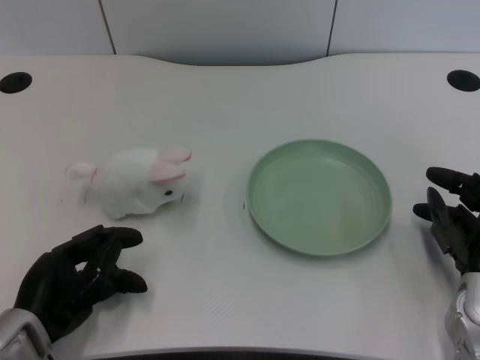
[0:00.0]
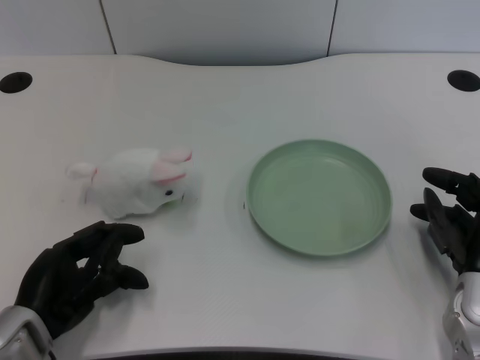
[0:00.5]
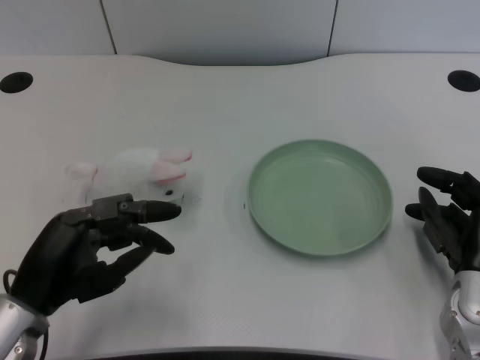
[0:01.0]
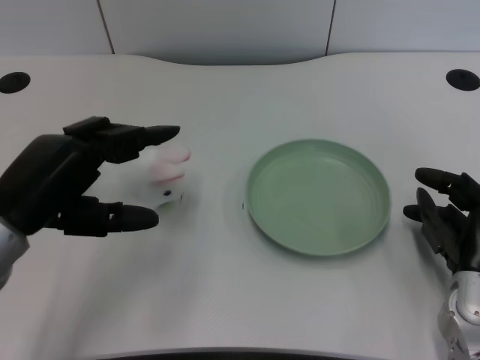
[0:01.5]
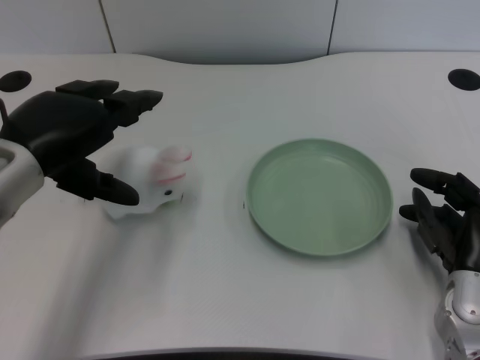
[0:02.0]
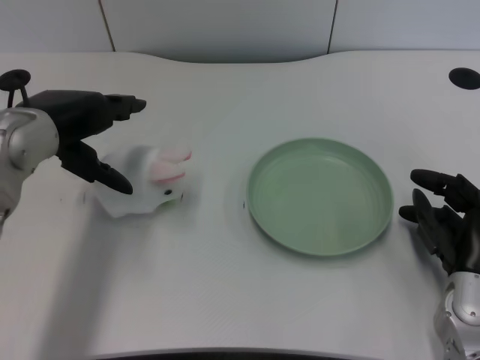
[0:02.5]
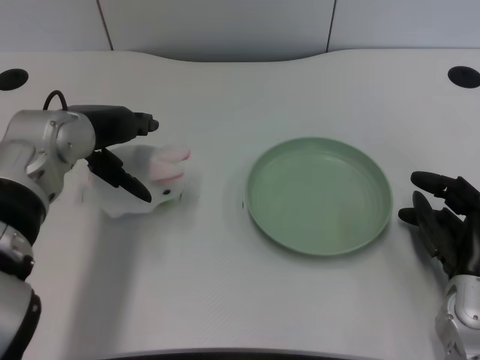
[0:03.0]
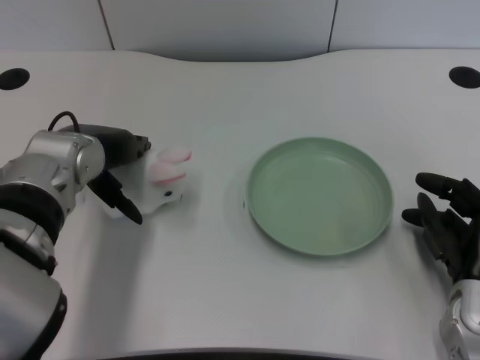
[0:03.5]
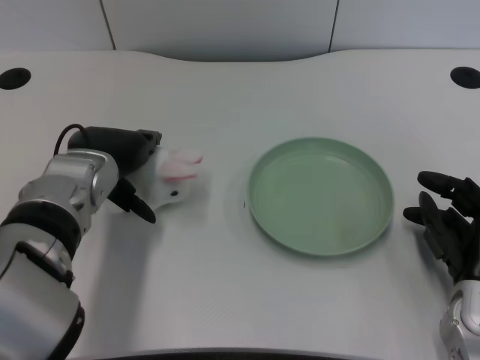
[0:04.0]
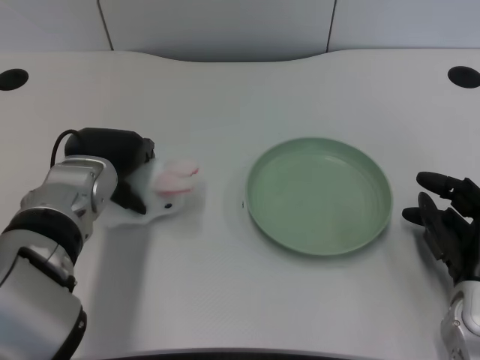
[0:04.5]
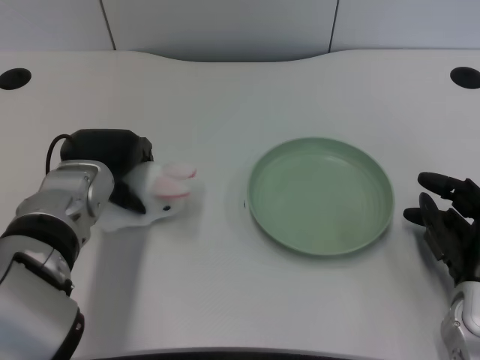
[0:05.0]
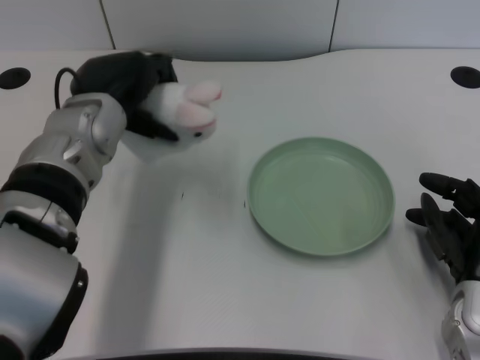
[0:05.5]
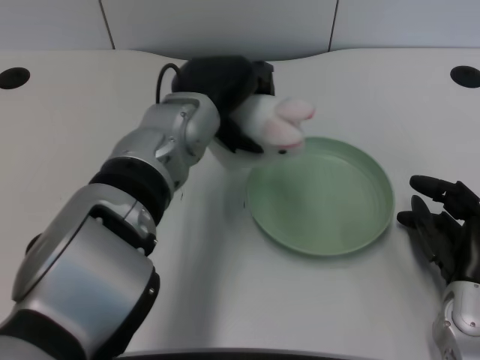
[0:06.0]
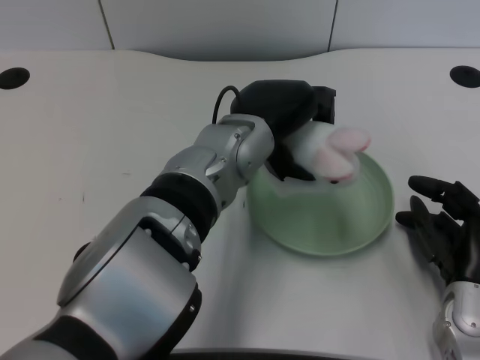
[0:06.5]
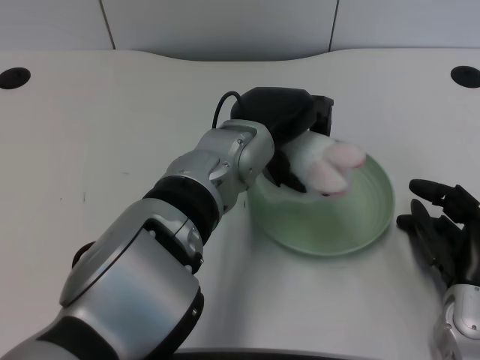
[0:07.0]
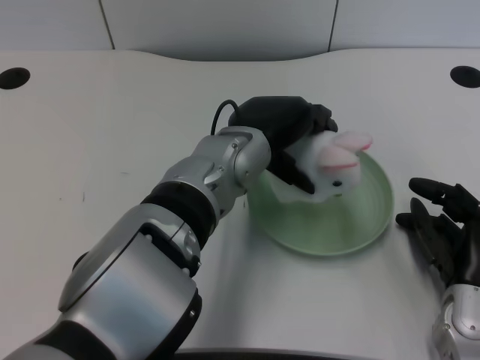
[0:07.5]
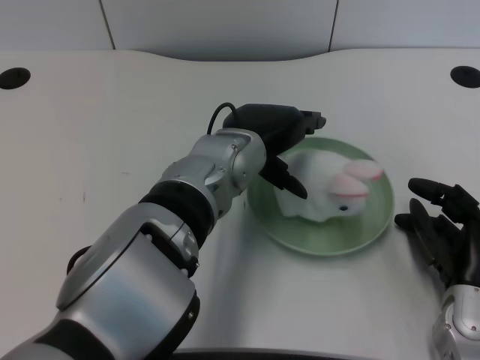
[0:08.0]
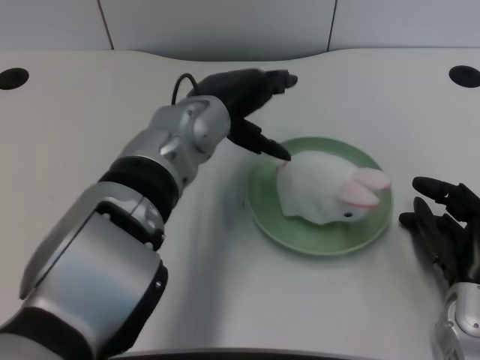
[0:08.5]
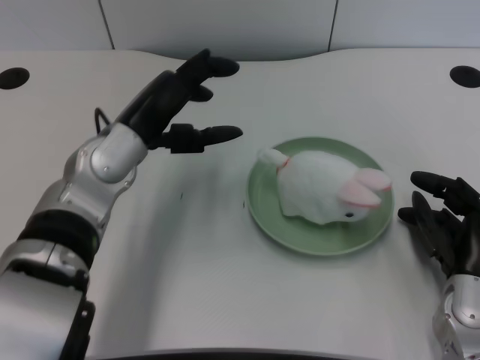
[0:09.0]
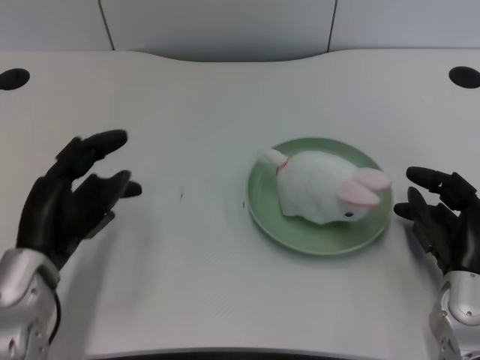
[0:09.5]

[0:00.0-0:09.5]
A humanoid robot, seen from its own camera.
Task of the whole recording: pick up the rabbit doll from the table and place it on the plate.
Step, 0:01.0 to 0:05.0: Grasp the rabbit doll with the left gripper.
Step, 0:05.5 to 0:07.5: Place the rabbit doll into the plate with the left gripper.
0:02.0 to 0:04.0: The left hand is displaced downward, to the right and forward by approximately 10 cm.
0:04.0 to 0:05.5: The left hand moves roughly 5 cm.
0:05.5 to 0:07.5: The left hand moves to the right, roughly 15 cm.
0:07.5 to 0:09.5: The left hand travels to the left by about 20 cm.

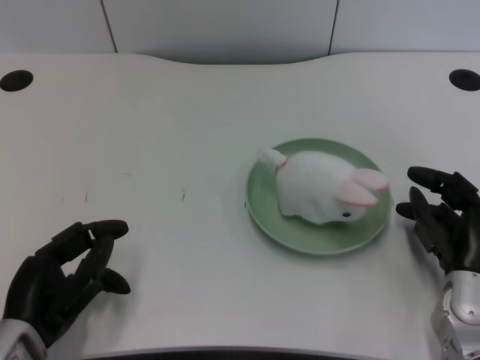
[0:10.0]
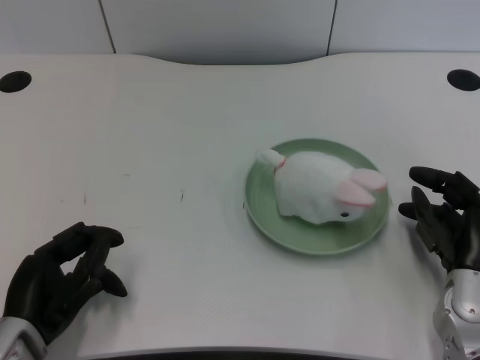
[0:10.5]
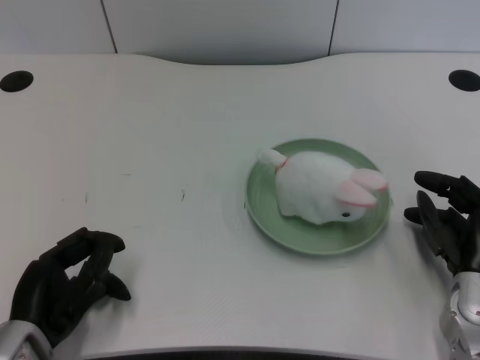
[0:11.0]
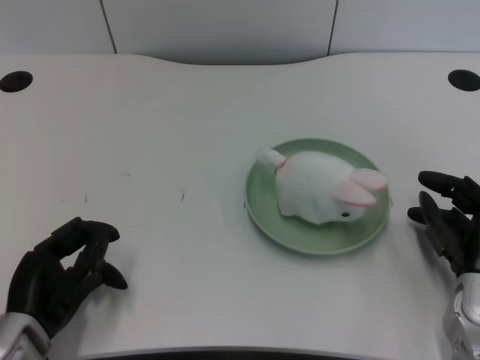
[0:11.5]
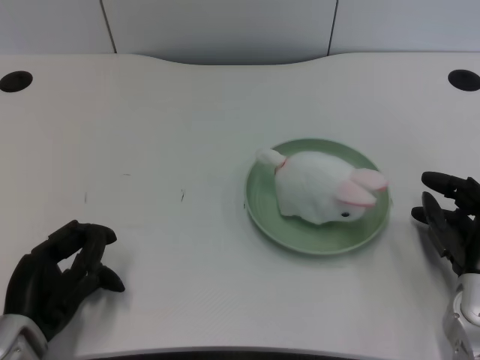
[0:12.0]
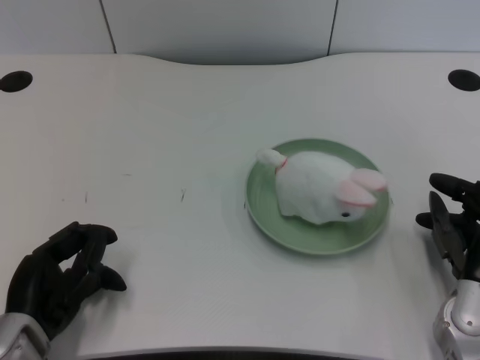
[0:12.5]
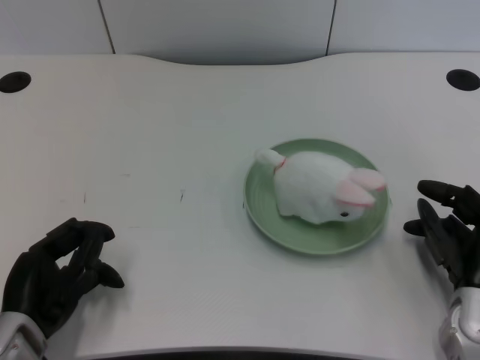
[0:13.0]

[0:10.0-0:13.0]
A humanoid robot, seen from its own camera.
Task of the whole recording: pick up the rabbit doll from the table and place it on the plate.
0:10.0 to 0:13.0: The hands make only small movements.

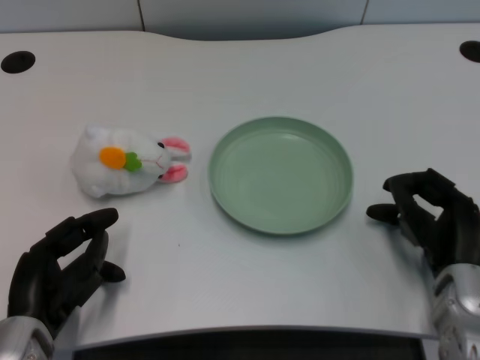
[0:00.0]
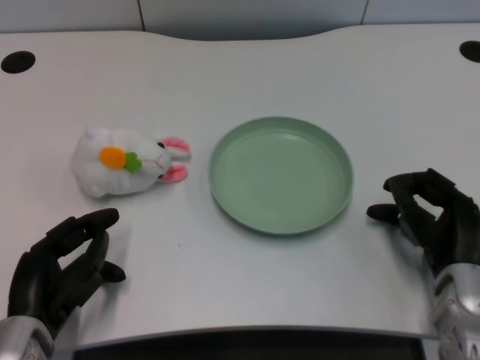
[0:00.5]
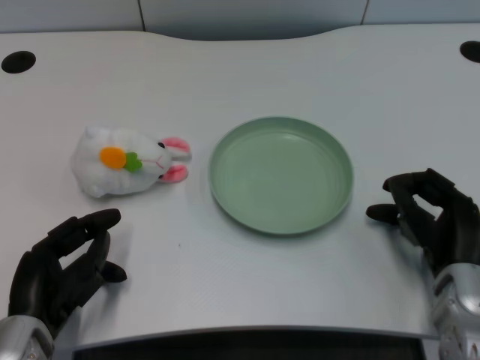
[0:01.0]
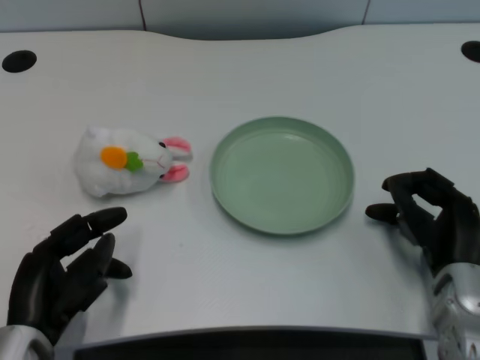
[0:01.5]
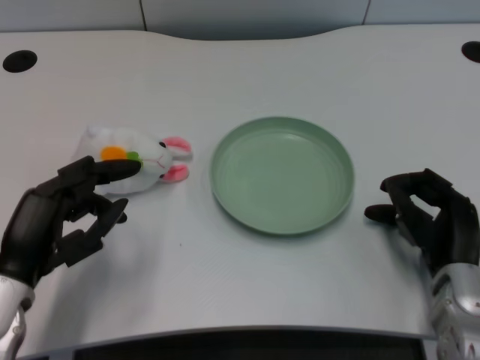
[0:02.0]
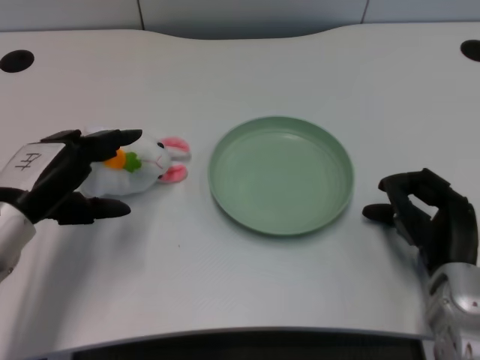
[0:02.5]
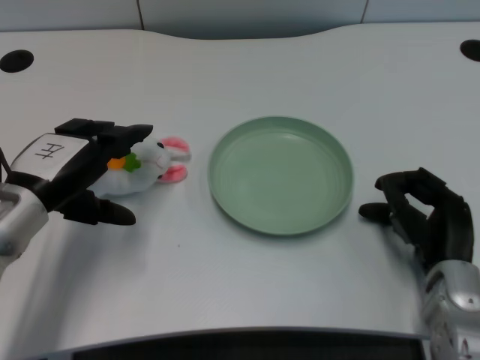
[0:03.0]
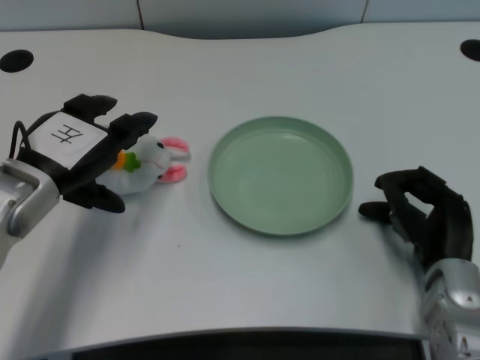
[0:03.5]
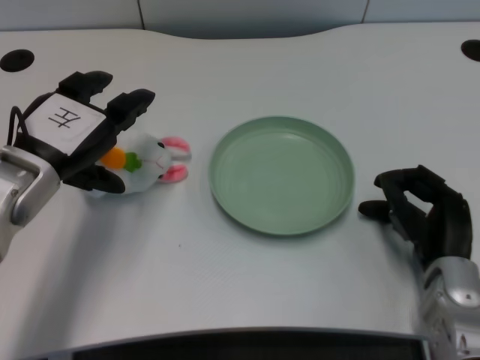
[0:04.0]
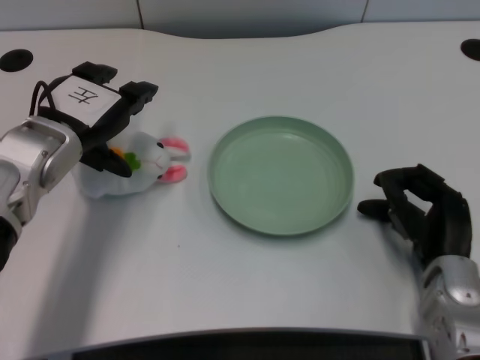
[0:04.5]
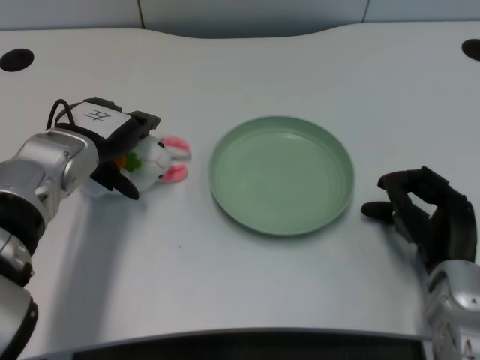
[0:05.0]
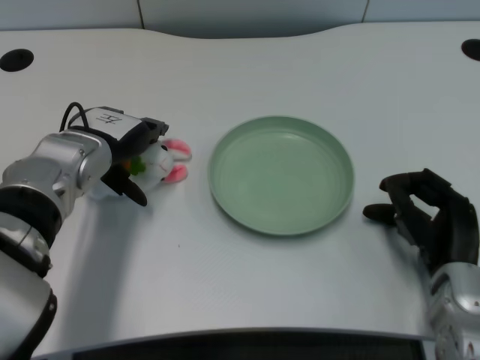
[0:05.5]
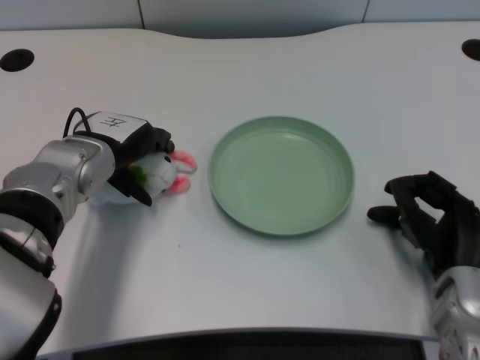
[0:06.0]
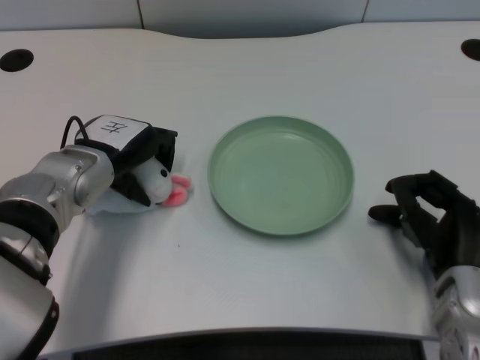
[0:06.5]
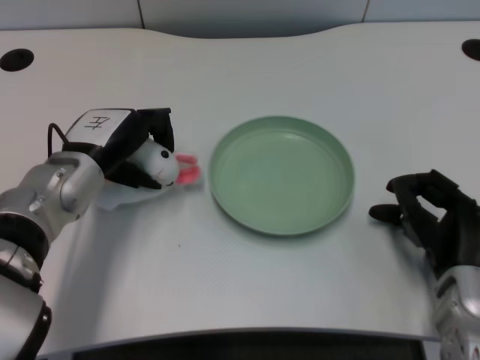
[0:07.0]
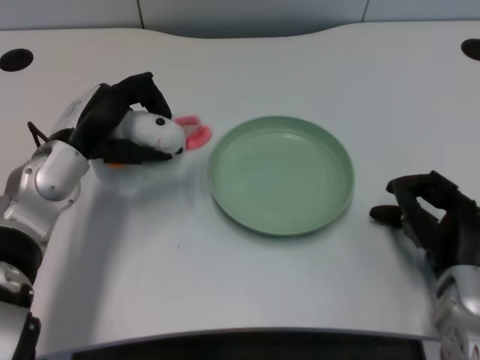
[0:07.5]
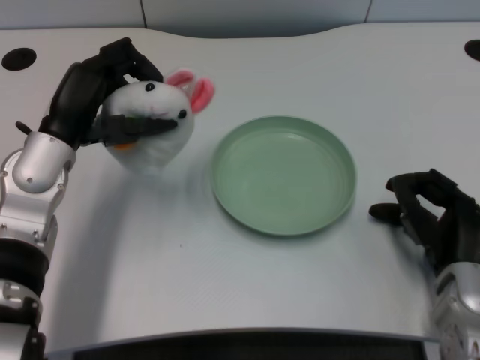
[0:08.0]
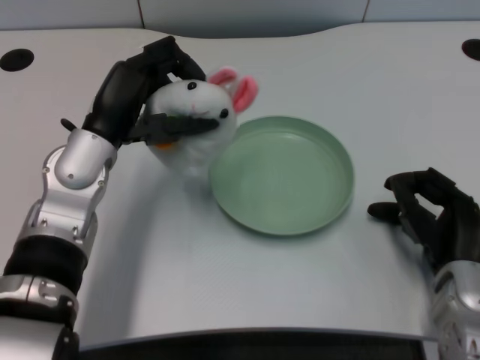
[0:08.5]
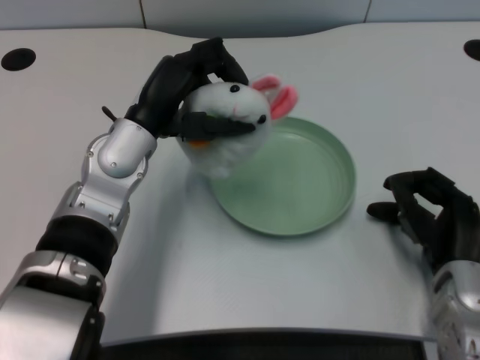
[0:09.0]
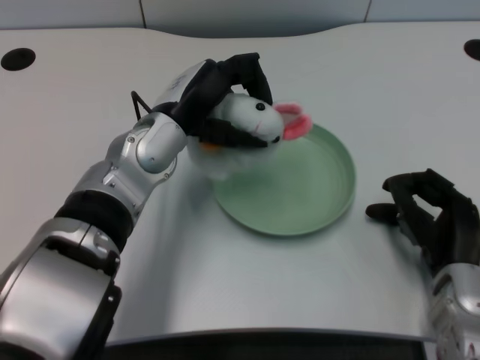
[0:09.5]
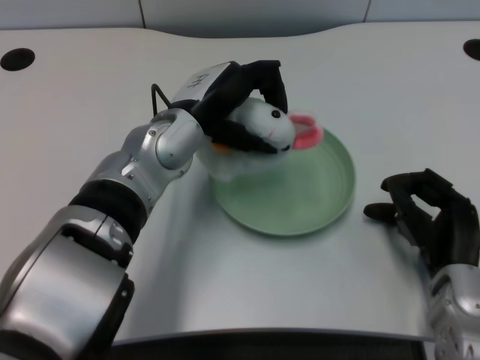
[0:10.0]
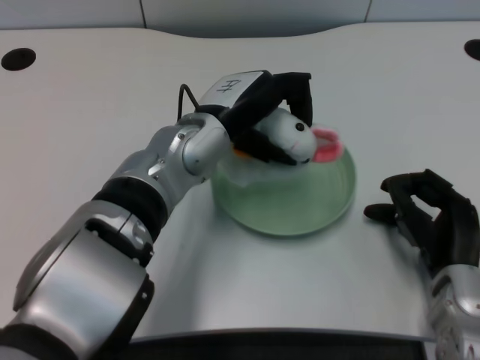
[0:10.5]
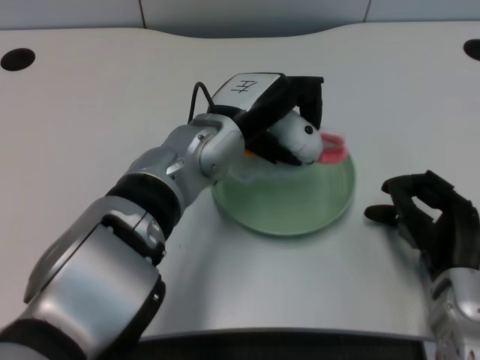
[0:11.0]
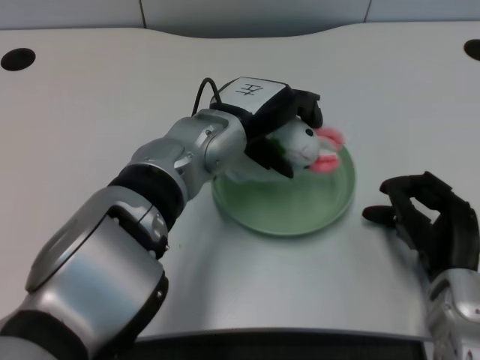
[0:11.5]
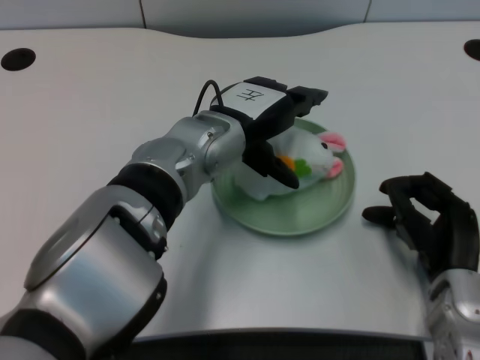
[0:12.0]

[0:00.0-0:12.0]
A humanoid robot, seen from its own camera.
Task of the whole recording: pick up the rabbit doll from the table and place it on the plate.
Step, 0:02.0 to 0:06.5: Grasp the rabbit doll with the left gripper.
Step, 0:07.5 to 0:11.5: Place the rabbit doll into the plate with the left gripper.
0:02.0 to 0:04.0: The left hand travels forward and upward by some 10 cm.
0:04.0 to 0:06.0: The left hand changes place by some 5 cm.
0:08.0 to 0:10.0: The left hand moves to the right, some 10 cm.

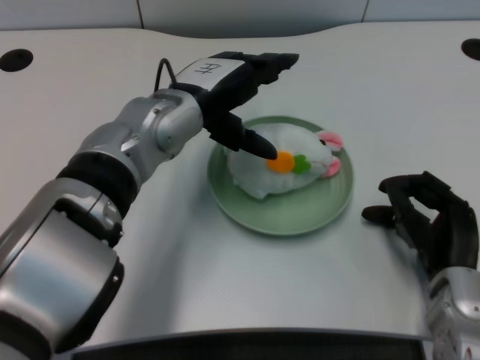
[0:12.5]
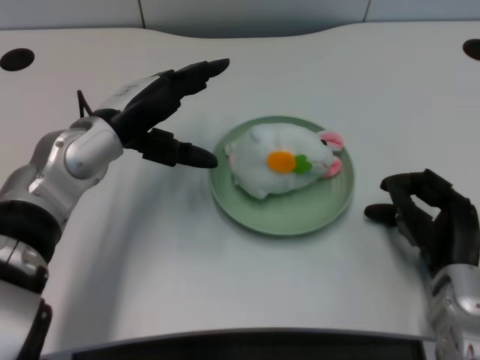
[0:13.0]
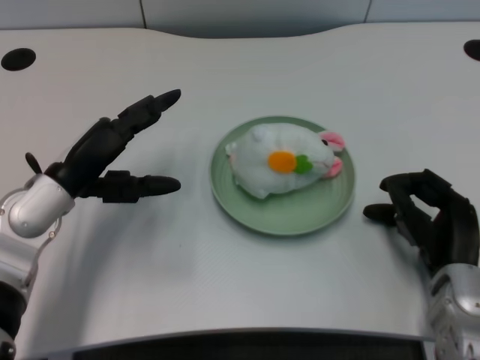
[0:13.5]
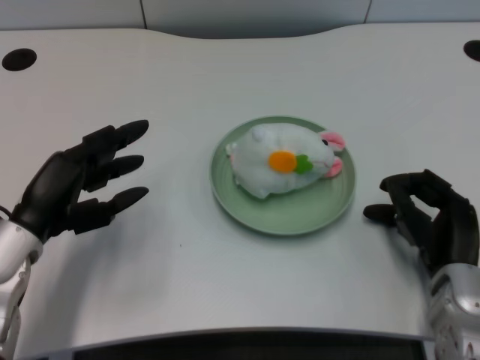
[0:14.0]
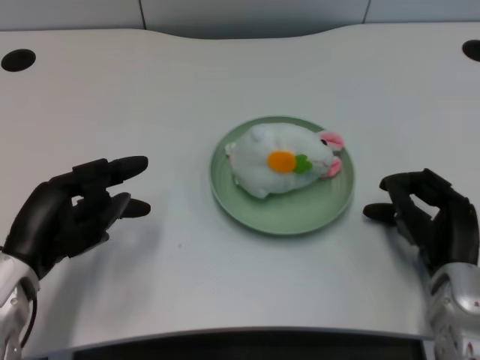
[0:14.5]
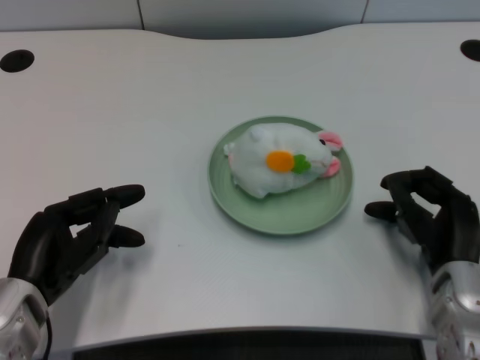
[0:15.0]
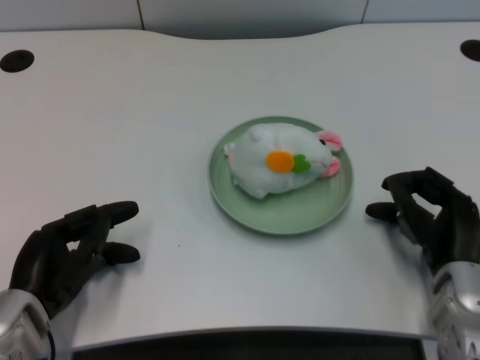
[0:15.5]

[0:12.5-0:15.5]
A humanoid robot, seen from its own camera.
Task of the whole recording: pick up the rabbit doll from the table and place it on the plate.
0:12.5 to 0:14.0: The left hand is displaced to the left, backward and downward by approximately 20 cm.
0:14.0 to 0:15.5: The left hand changes place by some 5 cm.
